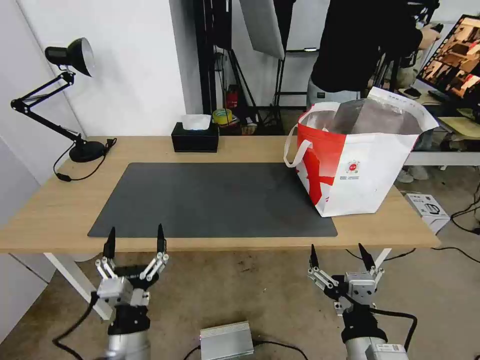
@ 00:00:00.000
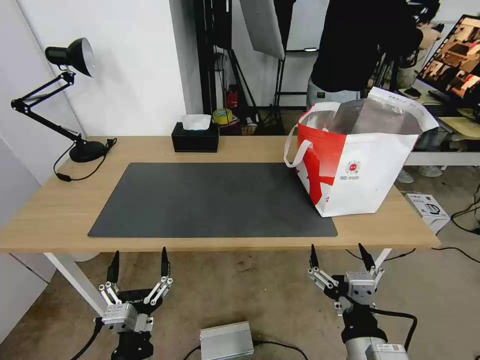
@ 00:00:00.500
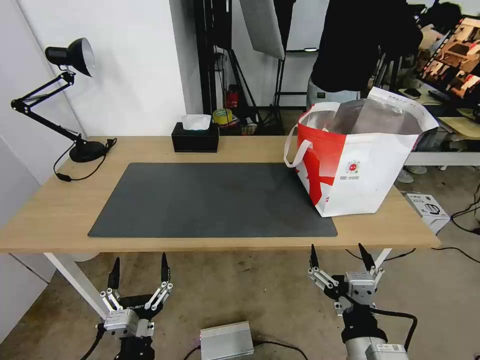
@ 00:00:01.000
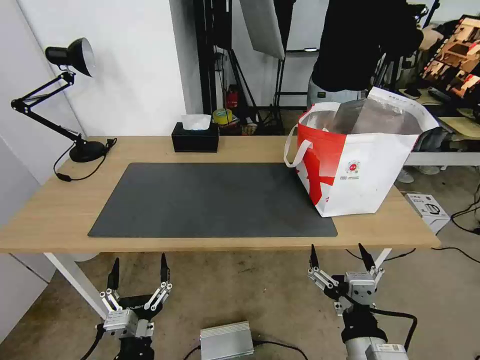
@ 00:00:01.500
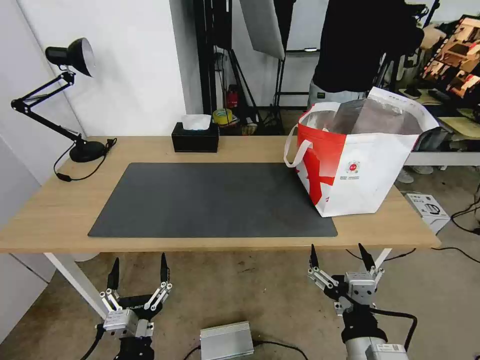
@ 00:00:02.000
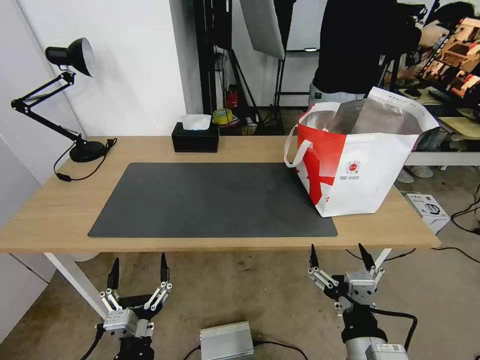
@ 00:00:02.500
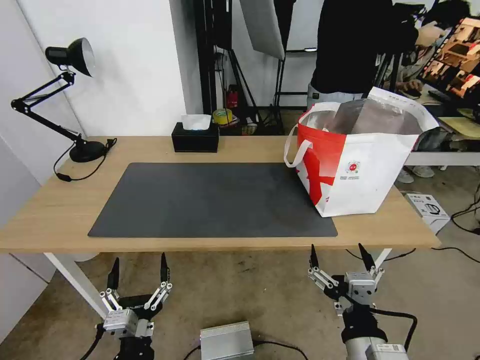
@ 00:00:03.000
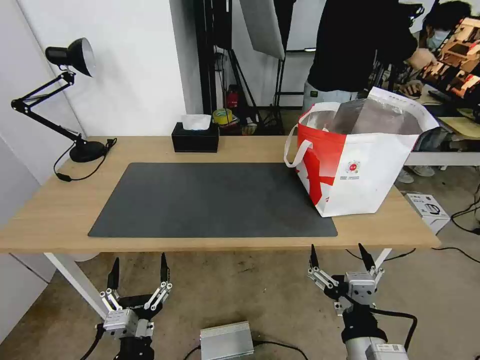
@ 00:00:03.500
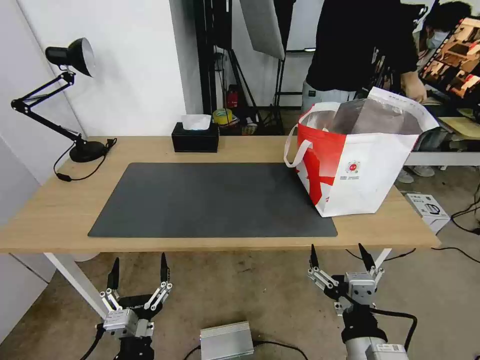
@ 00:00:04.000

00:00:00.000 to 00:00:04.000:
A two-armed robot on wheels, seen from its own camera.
Task of the whole recording: Pick up the trash from the table and place it into the takeout bag.
00:00:00.000 to 00:00:02.000: The left gripper shifts by some 5 cm.
00:00:02.000 to 00:00:04.000: The two grippers keep their place.
